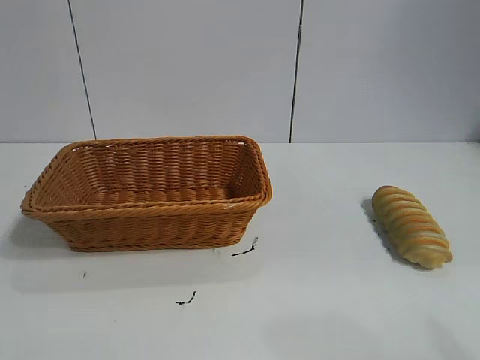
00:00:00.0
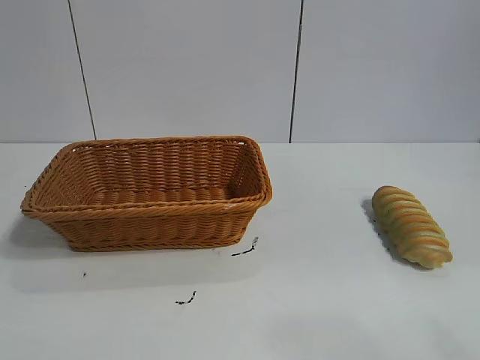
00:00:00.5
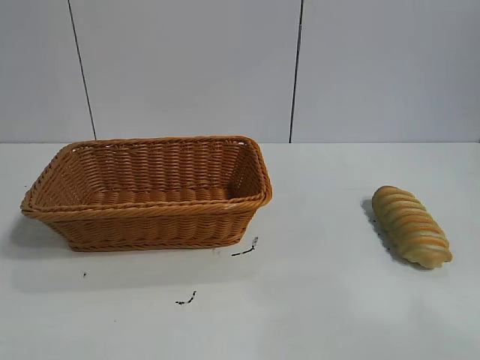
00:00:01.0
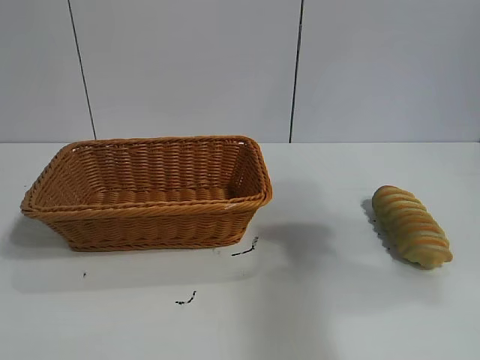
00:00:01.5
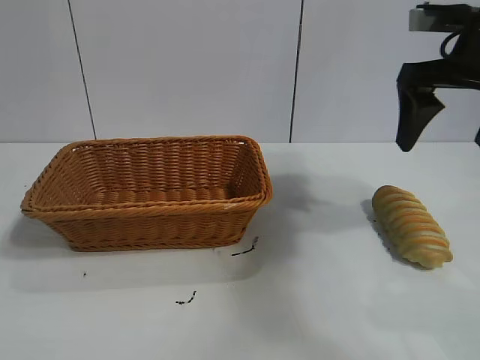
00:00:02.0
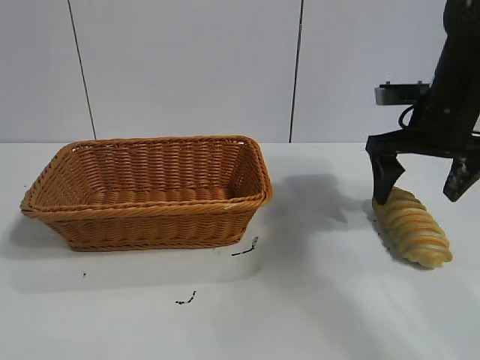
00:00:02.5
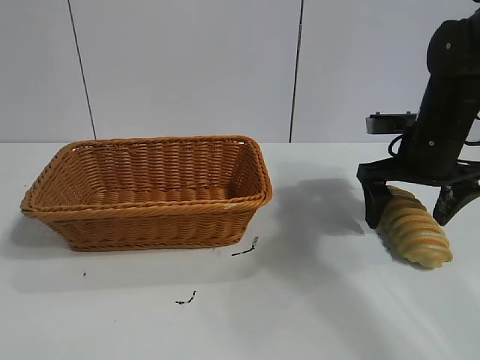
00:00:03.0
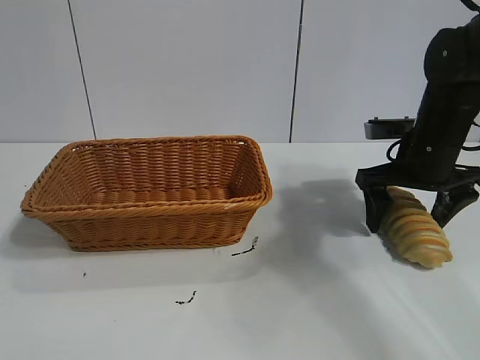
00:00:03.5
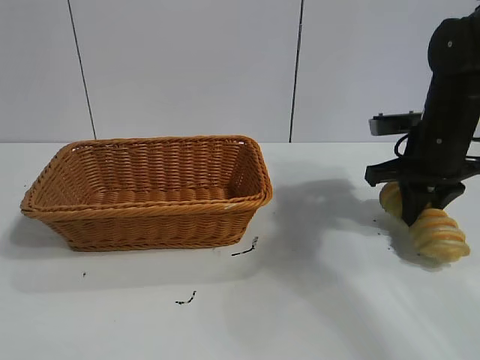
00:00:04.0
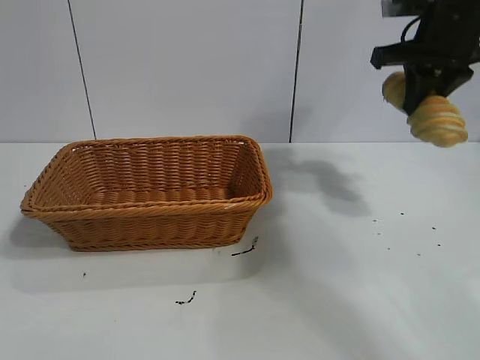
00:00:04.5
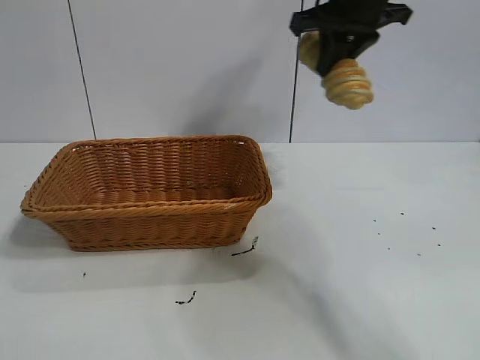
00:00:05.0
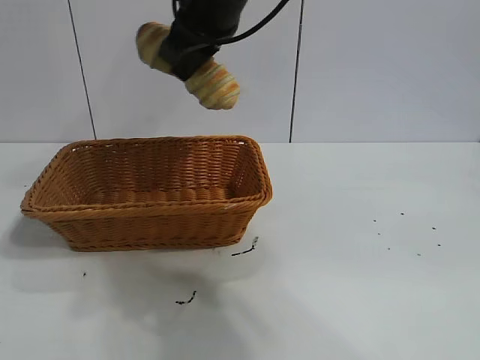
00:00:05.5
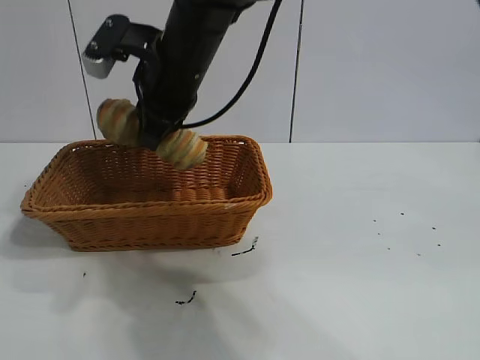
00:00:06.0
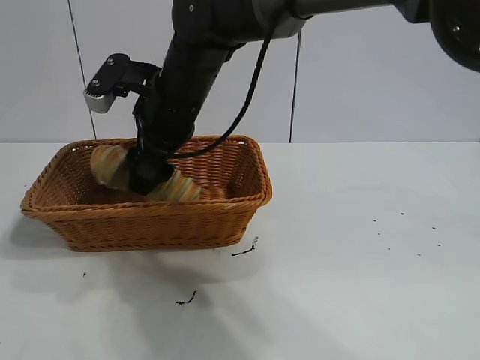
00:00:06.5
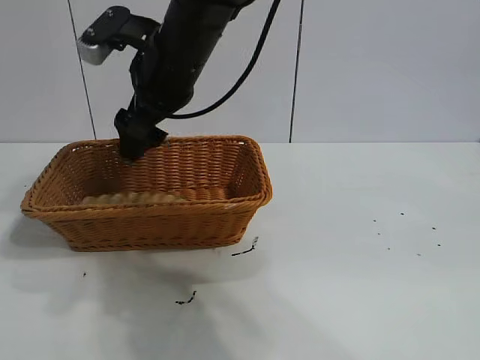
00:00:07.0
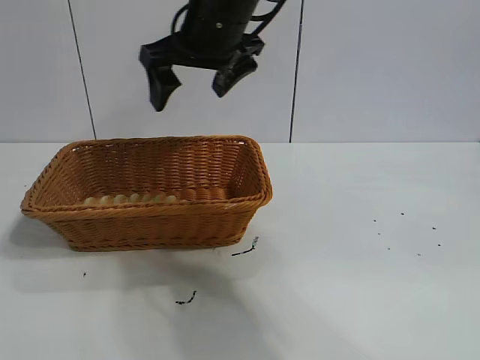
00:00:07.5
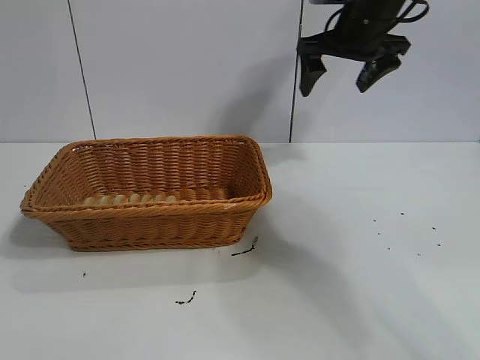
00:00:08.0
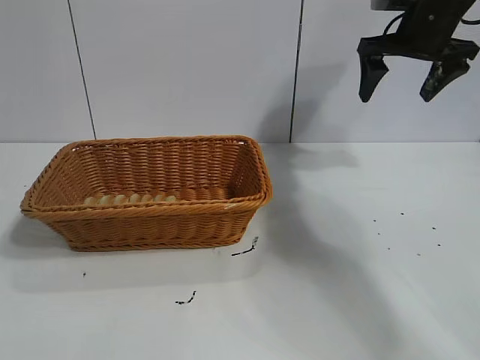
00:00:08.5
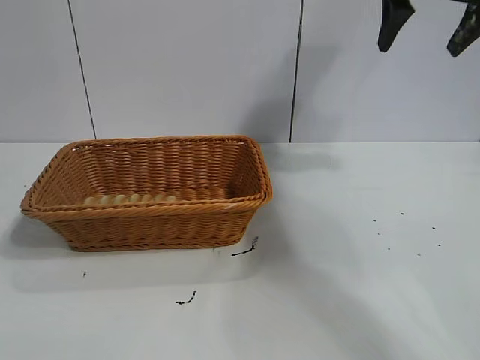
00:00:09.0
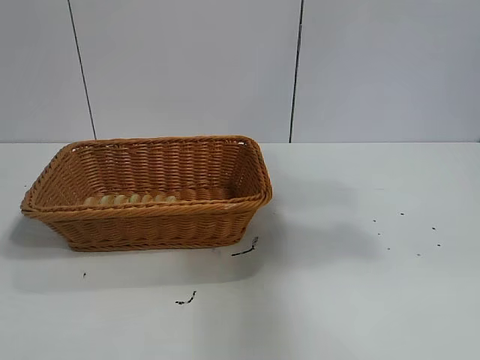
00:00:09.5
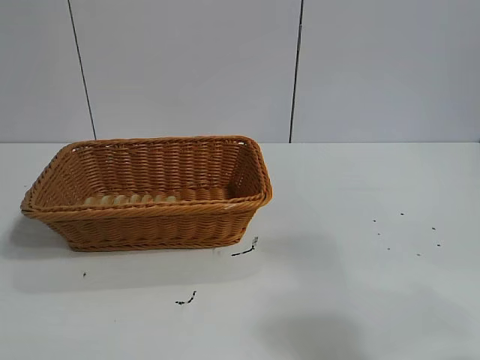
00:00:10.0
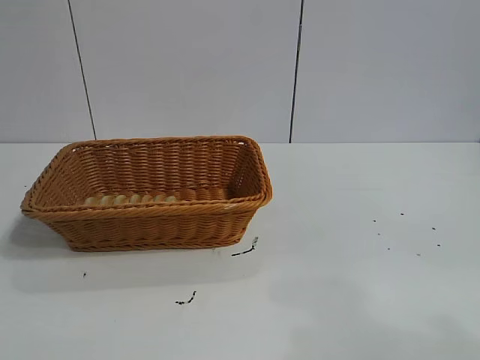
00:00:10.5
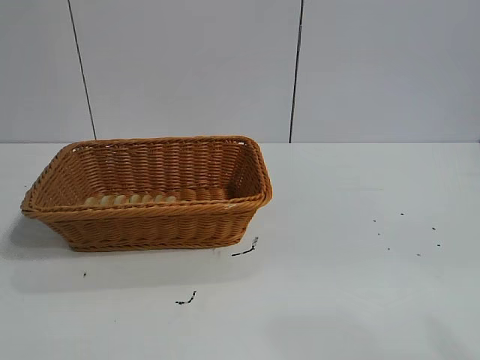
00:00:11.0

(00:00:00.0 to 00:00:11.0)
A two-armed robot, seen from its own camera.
Task of the whole recording: pick up the long bread and put it into the basket.
Step, 00:00:02.0 - 00:00:03.5: Grasp the long bread with right gripper.
Step, 00:00:04.5 - 00:00:07.0: Place the long bread in the basket with right gripper.

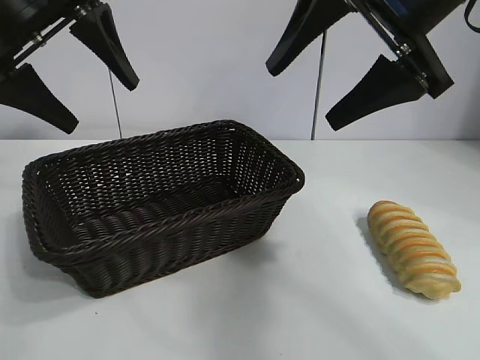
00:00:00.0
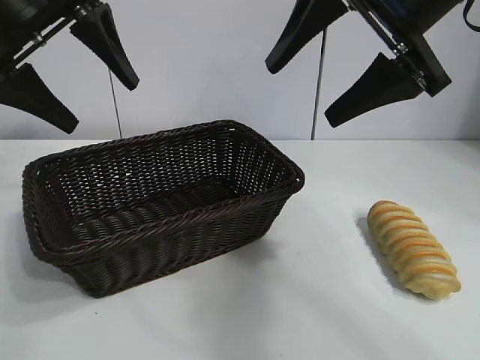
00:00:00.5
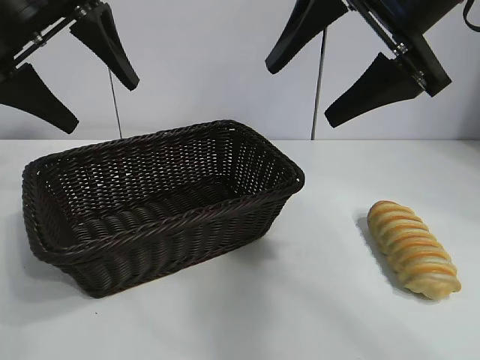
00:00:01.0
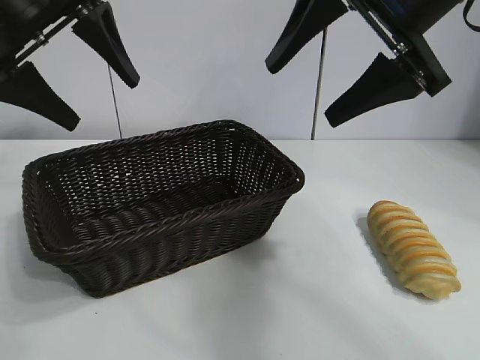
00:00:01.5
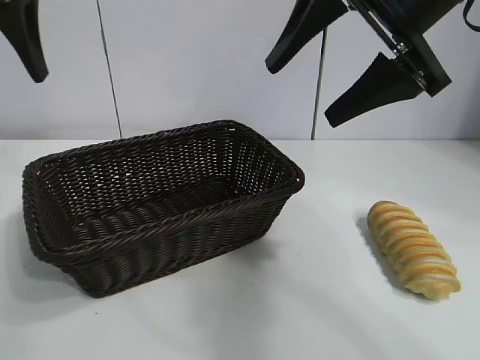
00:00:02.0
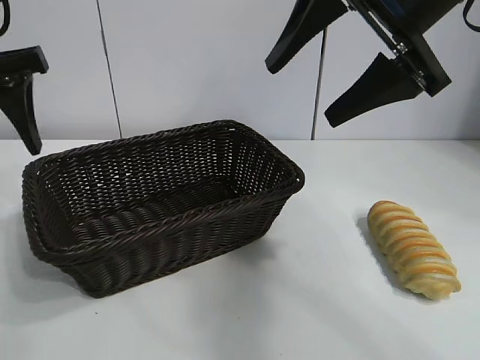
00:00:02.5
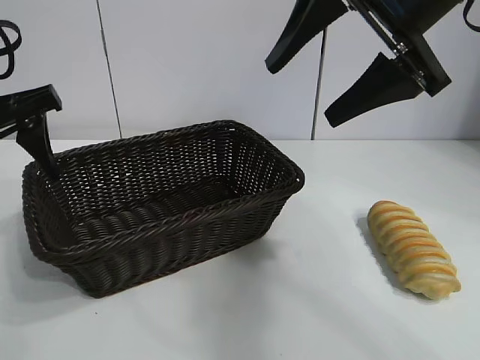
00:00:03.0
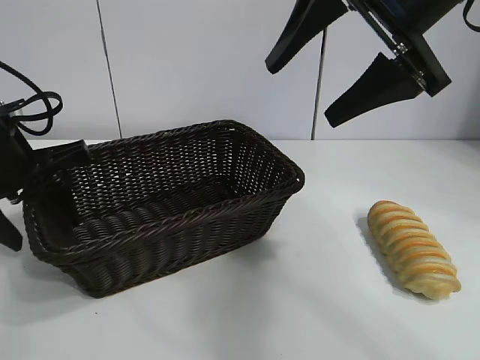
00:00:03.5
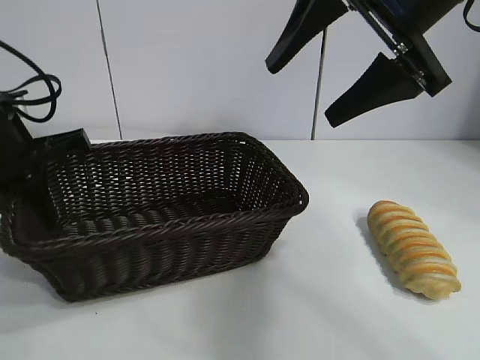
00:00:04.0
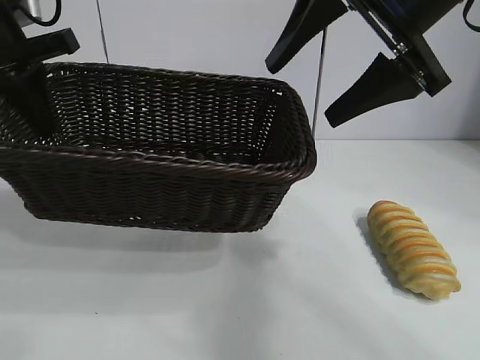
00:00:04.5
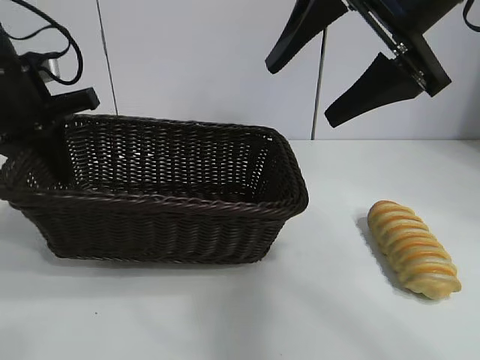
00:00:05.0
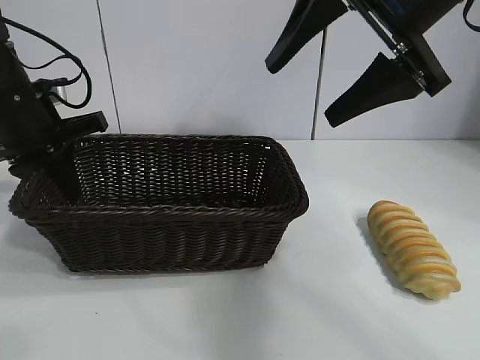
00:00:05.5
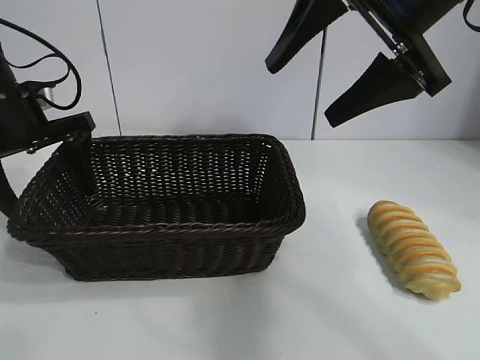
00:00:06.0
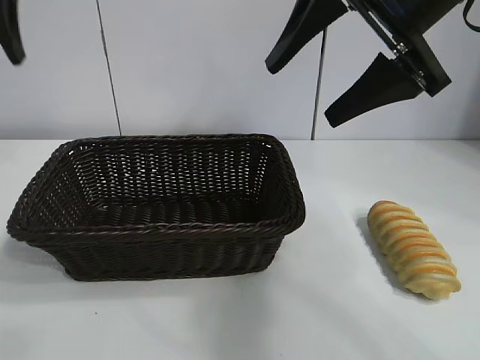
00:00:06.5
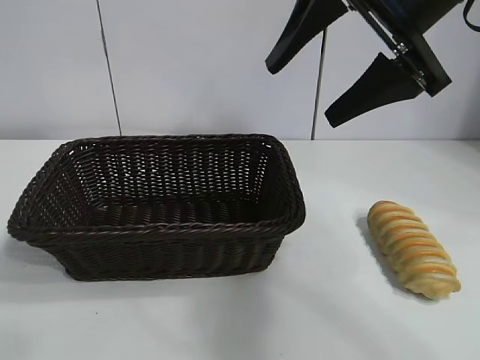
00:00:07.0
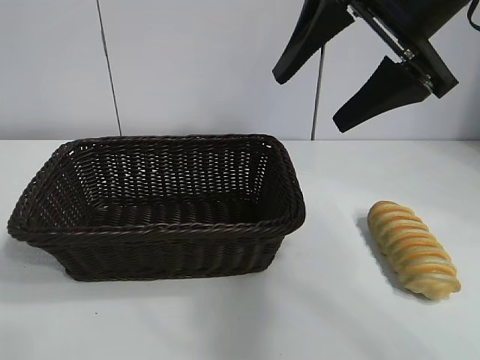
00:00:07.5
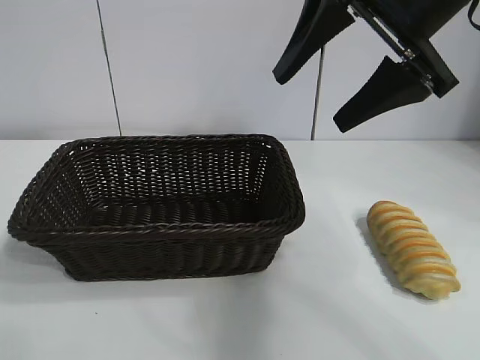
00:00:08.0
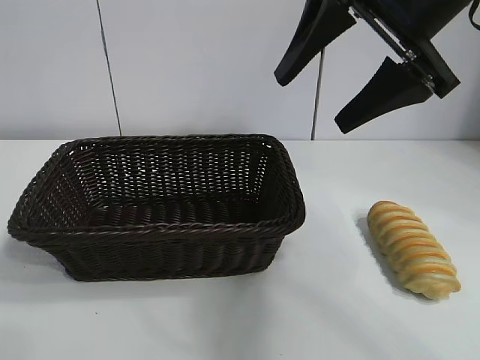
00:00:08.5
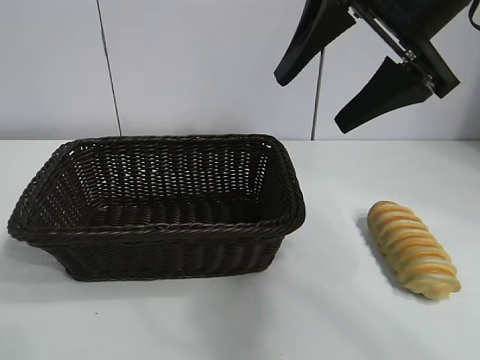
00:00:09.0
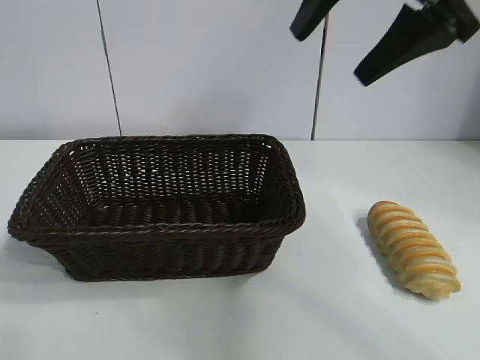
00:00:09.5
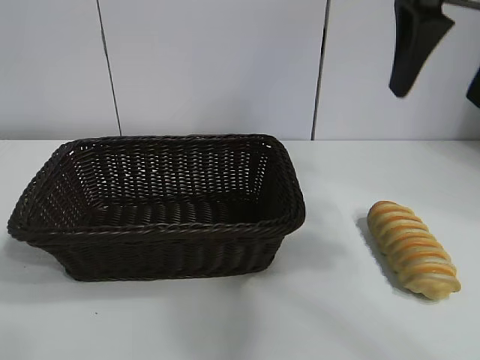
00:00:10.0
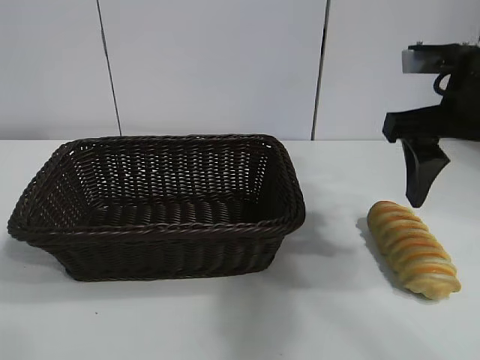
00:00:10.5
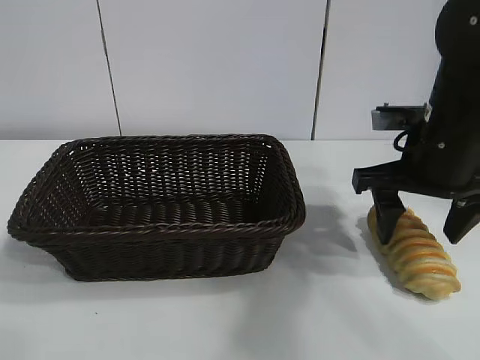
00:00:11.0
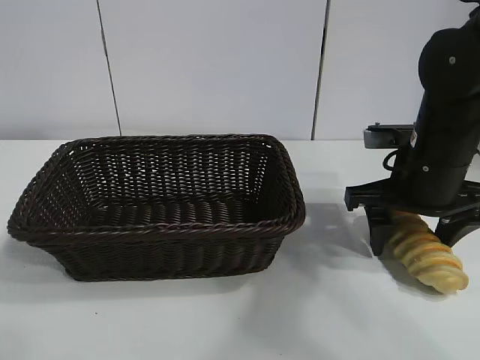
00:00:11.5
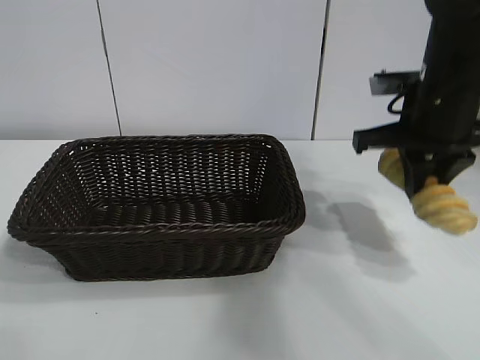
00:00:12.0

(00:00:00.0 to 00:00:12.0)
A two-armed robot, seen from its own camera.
Task of the whole recording: pick up the long bread and put it into the basket.
Step, 00:00:02.0 - 00:00:03.5: Grasp the basket with the left gripper.
Step, 00:00:04.0 - 00:00:05.5: Place the basket in the center of the table with the left gripper.
Step, 00:00:06.5 - 00:00:11.0: Grasp the long bread with right gripper.

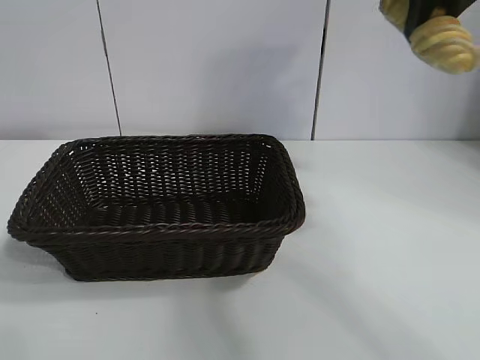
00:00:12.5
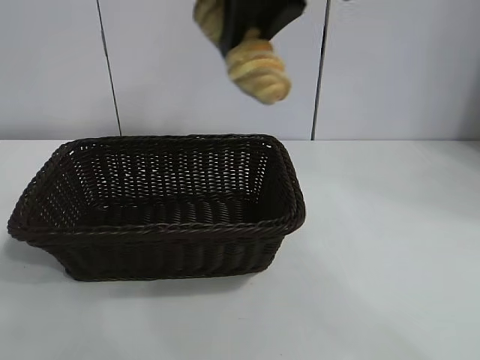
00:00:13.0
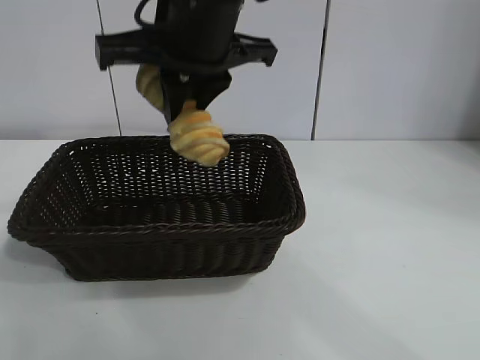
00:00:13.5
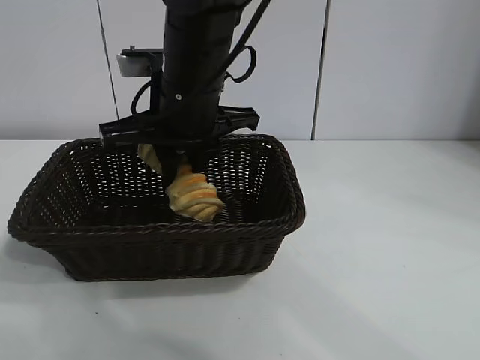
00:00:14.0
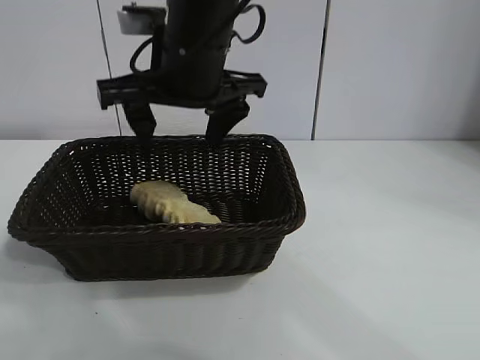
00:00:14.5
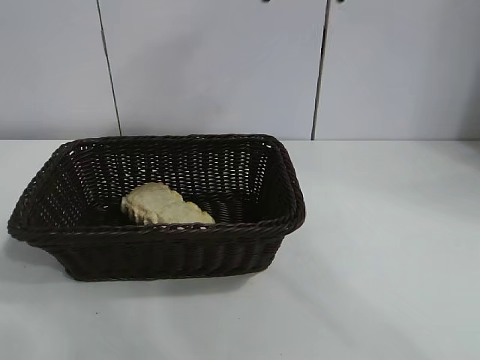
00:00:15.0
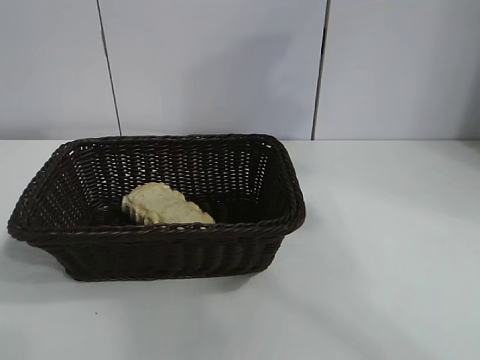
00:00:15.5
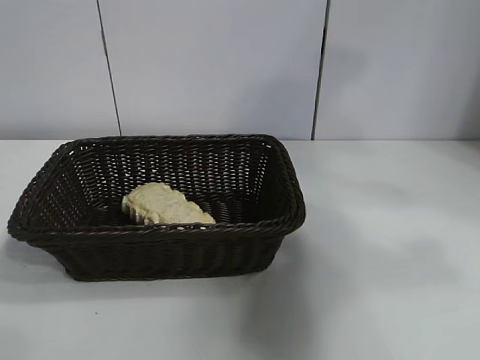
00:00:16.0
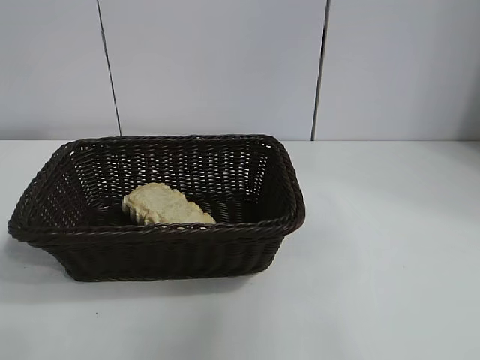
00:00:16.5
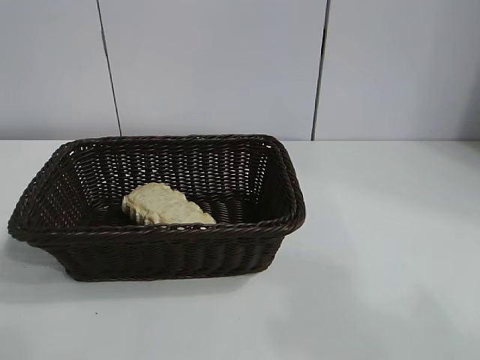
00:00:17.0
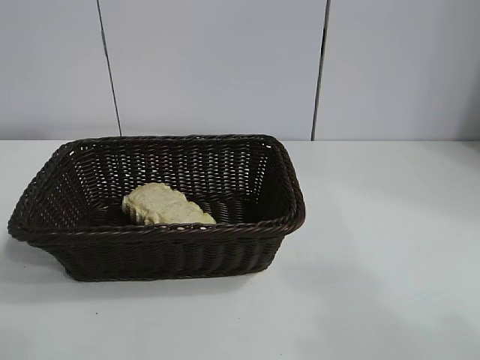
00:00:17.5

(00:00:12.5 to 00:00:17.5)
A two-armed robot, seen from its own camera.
Task of the whole recording: pick up the long bread and put it into the basket.
Step, 00:00:12.5 - 00:00:14.0: Place the long bread in the basket with right gripper.
